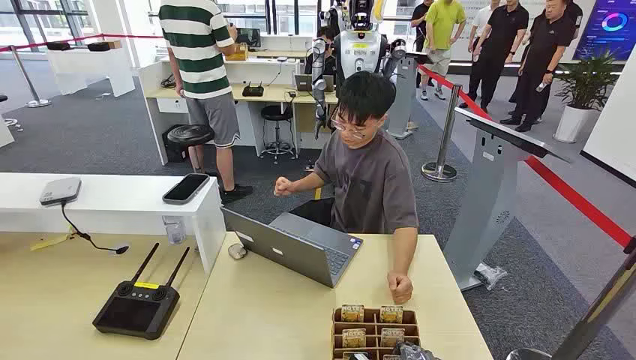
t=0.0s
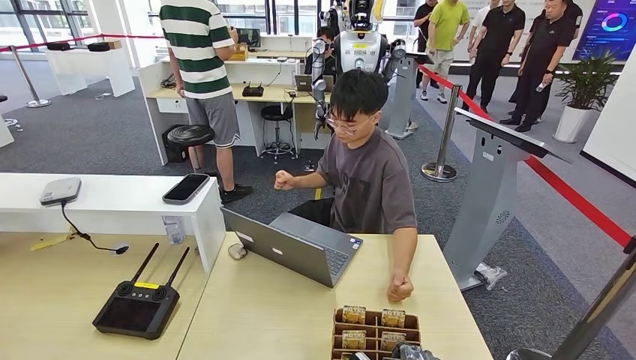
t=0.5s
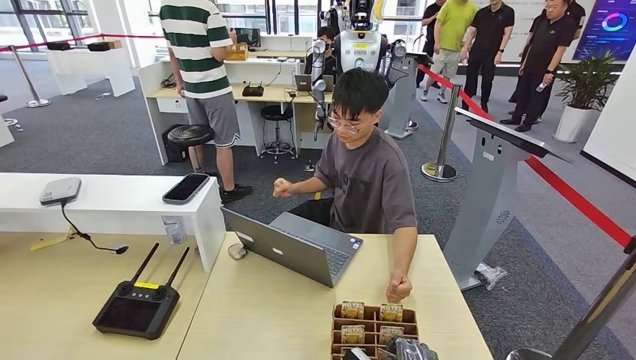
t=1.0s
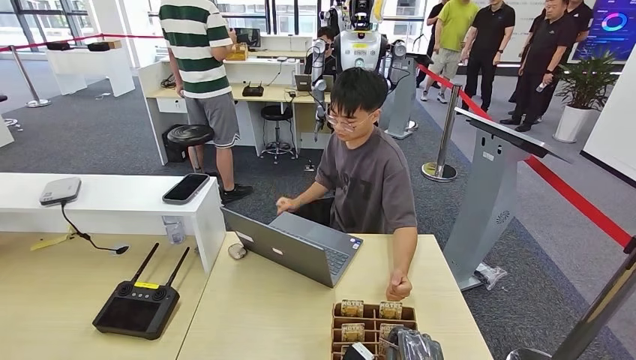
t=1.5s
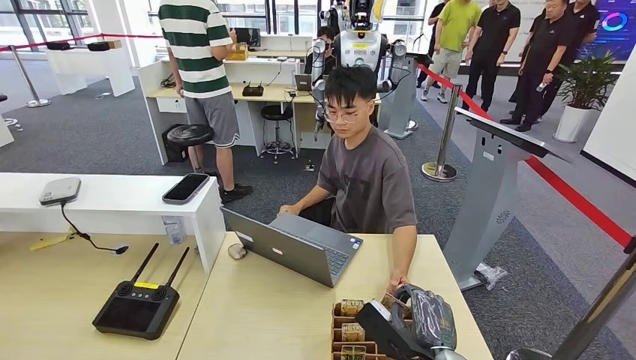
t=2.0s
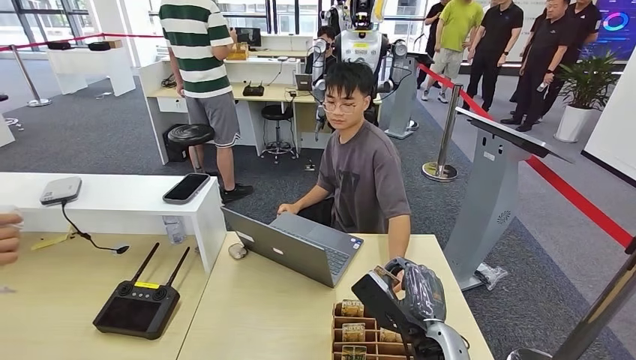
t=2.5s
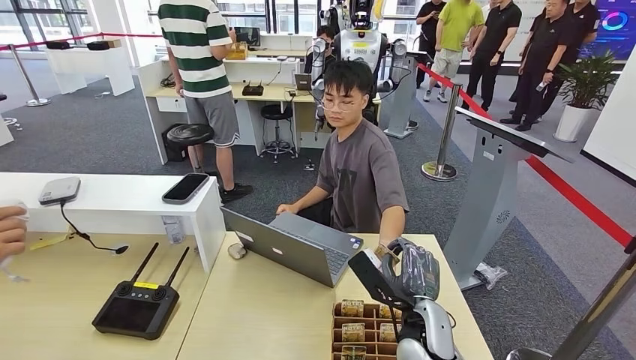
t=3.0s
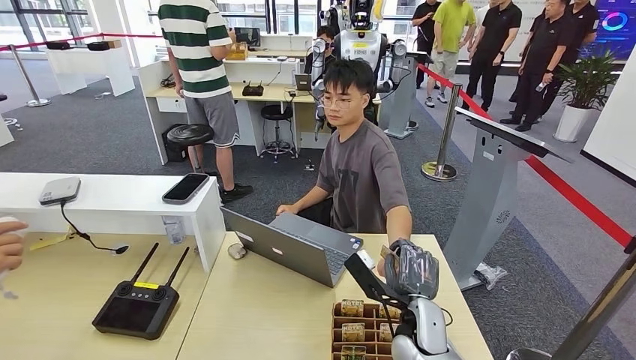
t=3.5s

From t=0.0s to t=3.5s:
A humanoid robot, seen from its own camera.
Step, from t=0.0s to t=1.0s: Pick up the room card from the card holder.
Step, from t=3.0s to t=3.5s: Hand the room card to the target.
From t=2.0s to t=3.5s: The right hand is displaced forward by about 10 cm.
